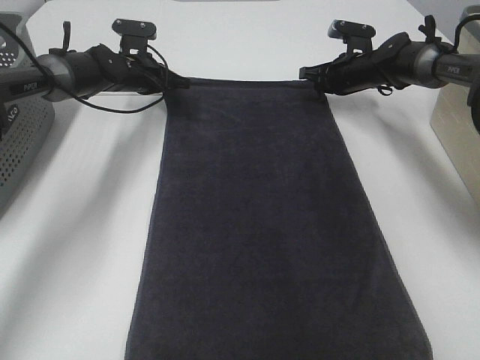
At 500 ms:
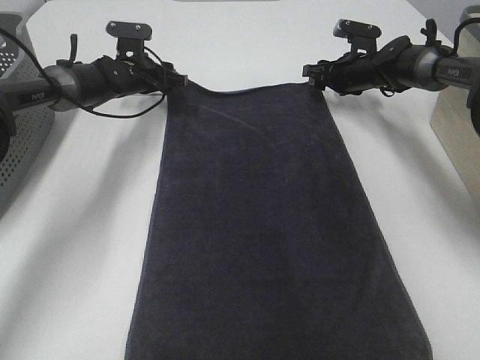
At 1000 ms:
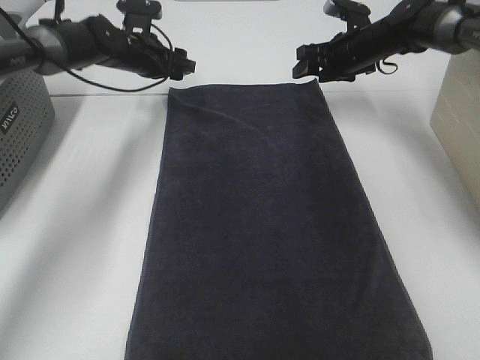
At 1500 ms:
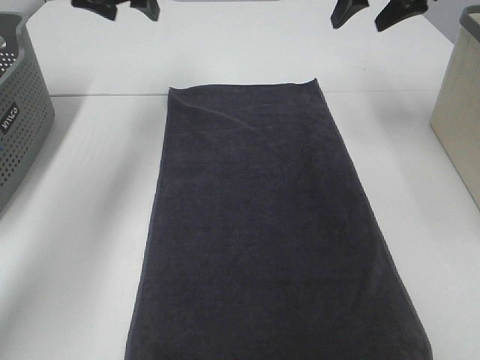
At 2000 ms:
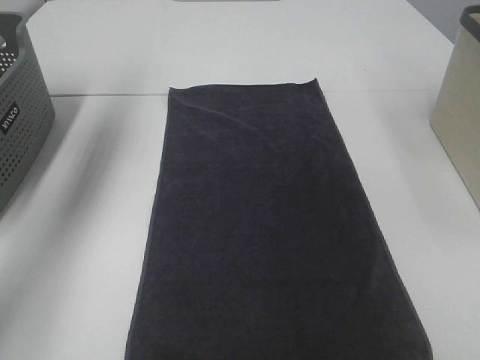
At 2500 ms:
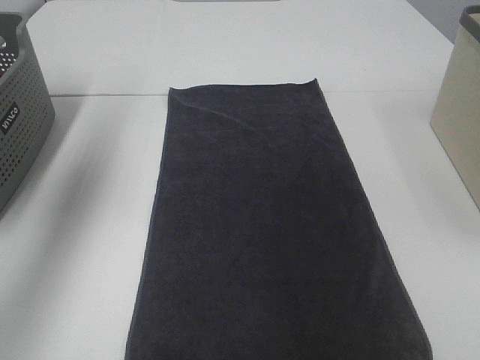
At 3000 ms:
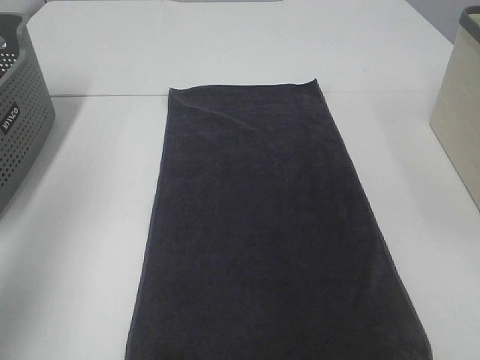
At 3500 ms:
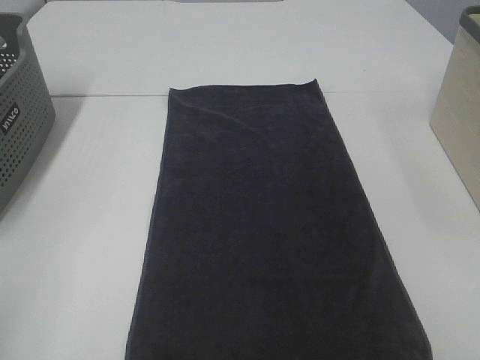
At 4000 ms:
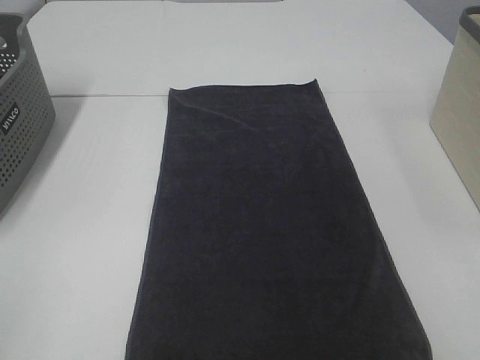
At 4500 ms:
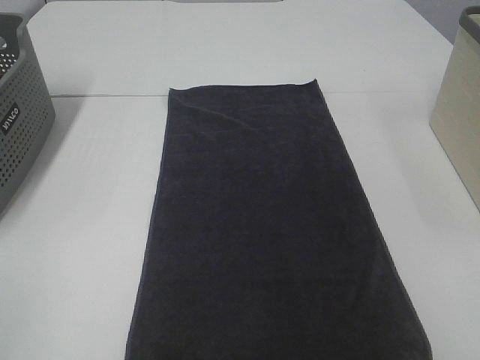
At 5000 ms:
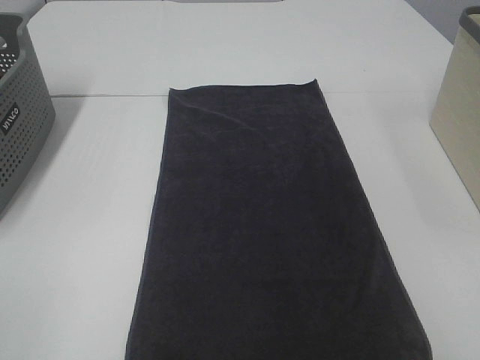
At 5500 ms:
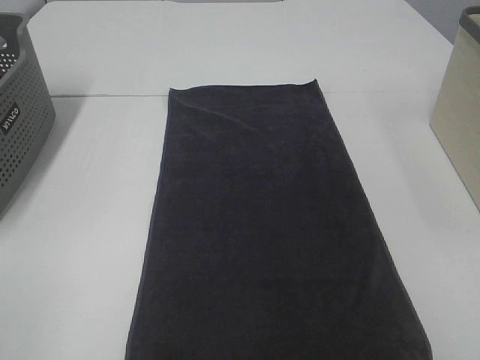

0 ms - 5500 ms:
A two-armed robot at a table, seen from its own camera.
Task of the whole recording: Remove the towel and place it.
0 ms - 2000 ms: Both grippers move upward and backward, some 35 cm. The left gripper opens. Meanwhile the right gripper opens.
2000 ms - 3500 ms: The left gripper shifts about 40 cm backward.

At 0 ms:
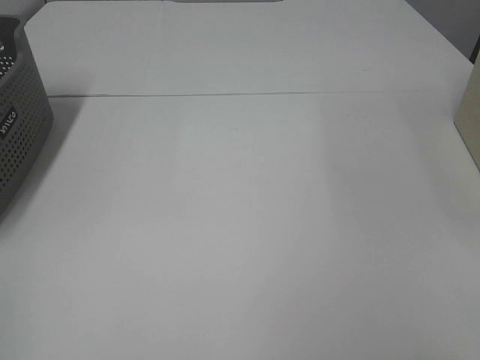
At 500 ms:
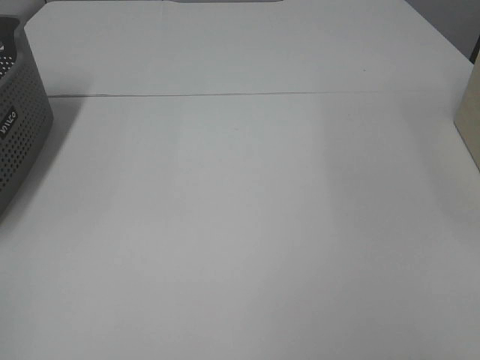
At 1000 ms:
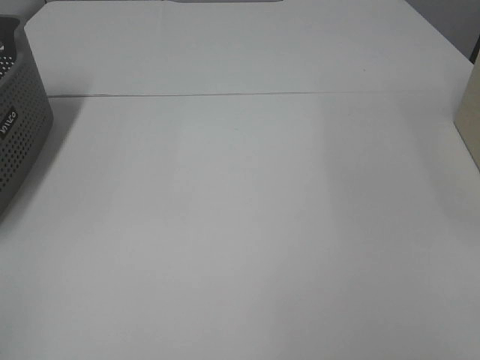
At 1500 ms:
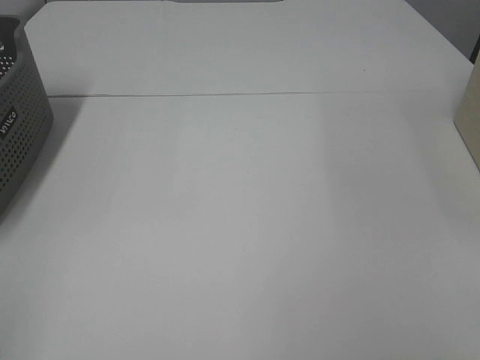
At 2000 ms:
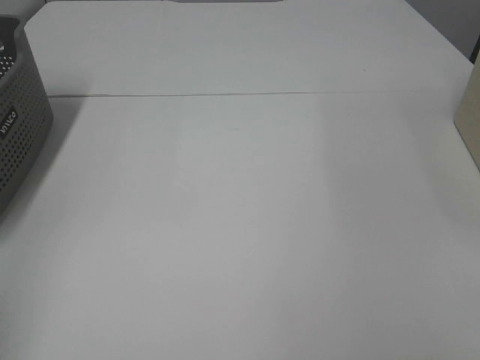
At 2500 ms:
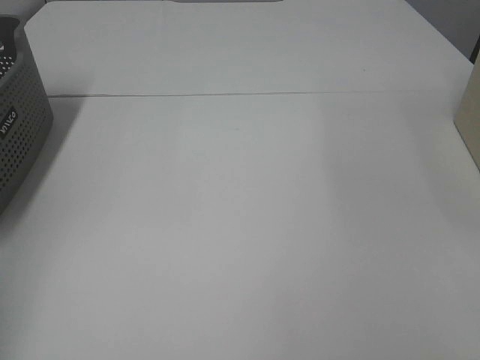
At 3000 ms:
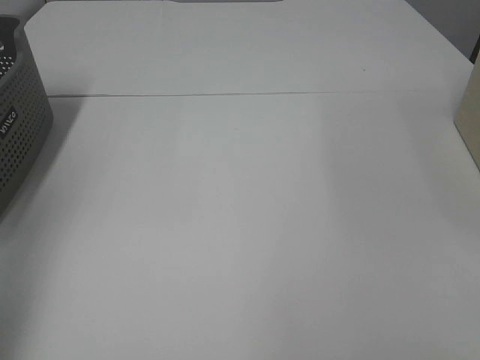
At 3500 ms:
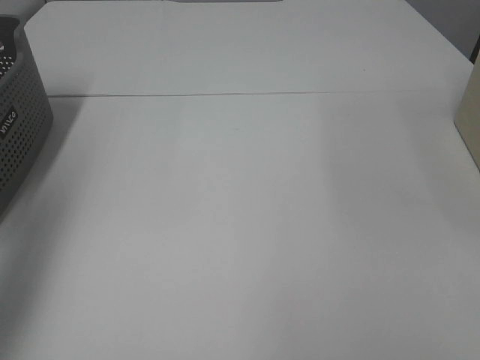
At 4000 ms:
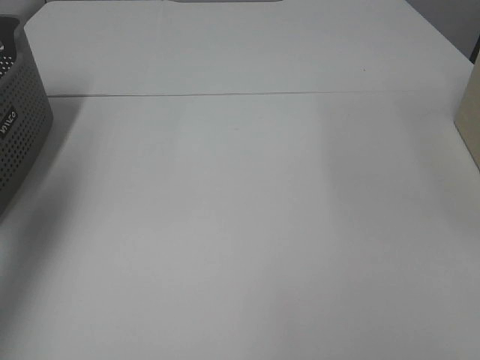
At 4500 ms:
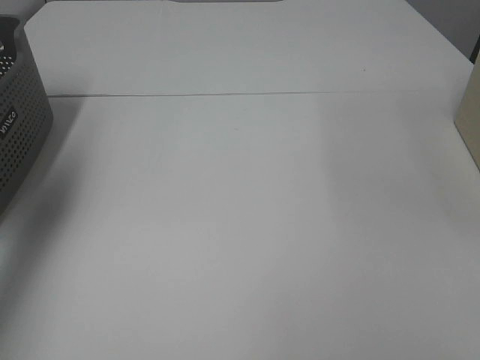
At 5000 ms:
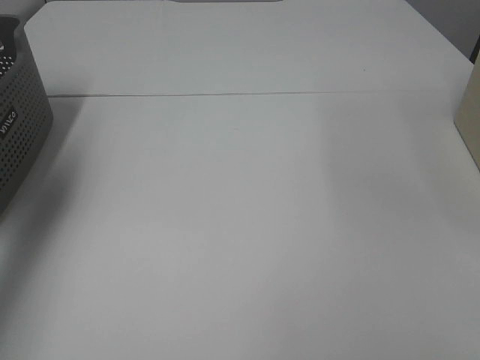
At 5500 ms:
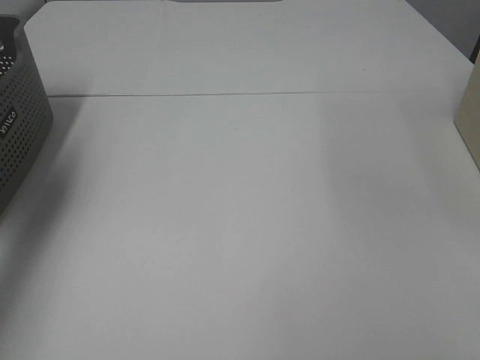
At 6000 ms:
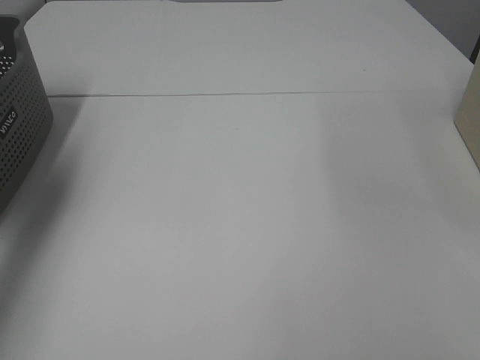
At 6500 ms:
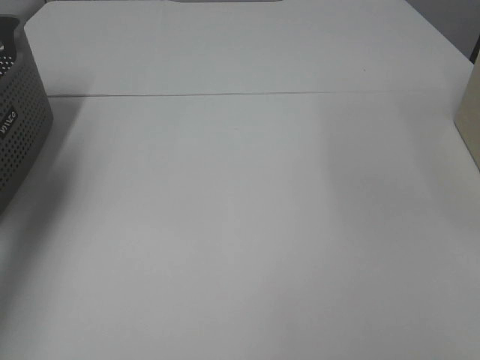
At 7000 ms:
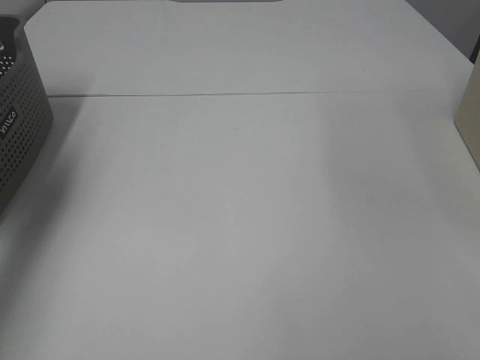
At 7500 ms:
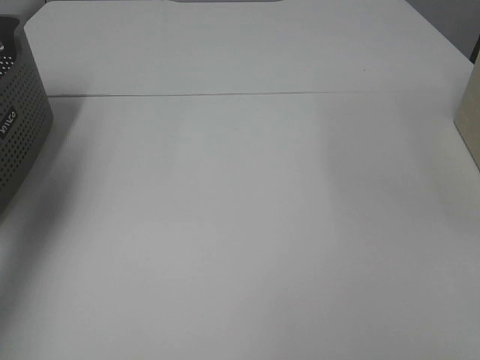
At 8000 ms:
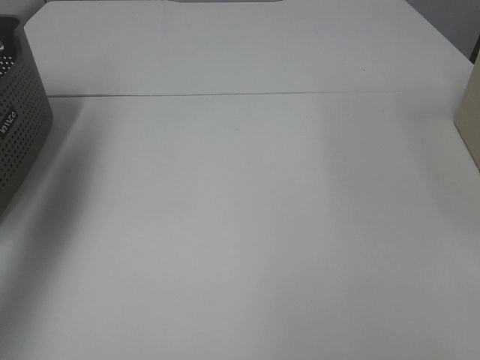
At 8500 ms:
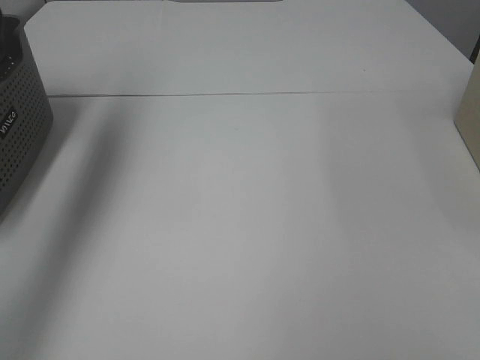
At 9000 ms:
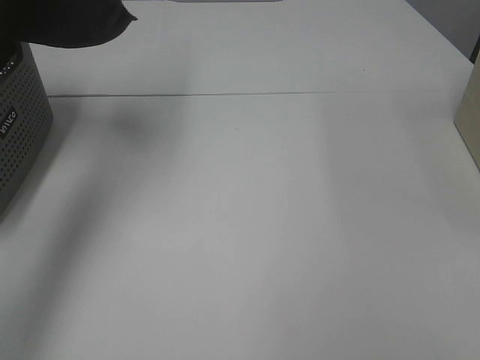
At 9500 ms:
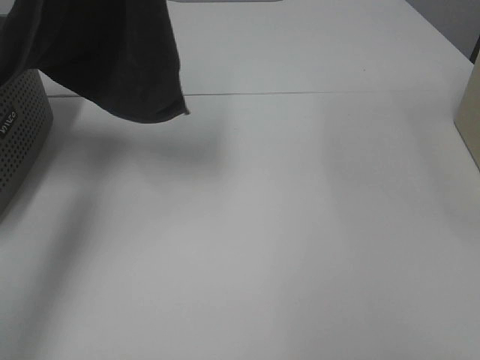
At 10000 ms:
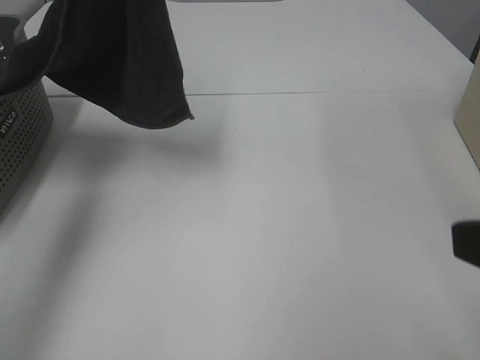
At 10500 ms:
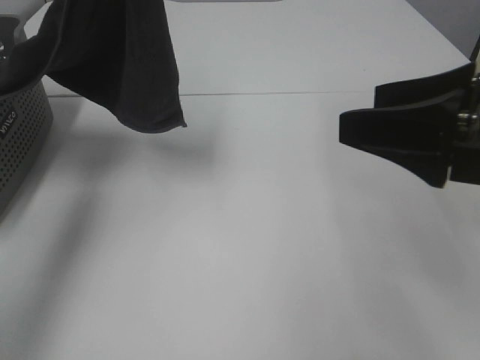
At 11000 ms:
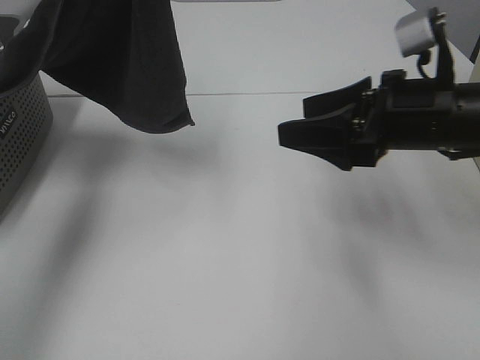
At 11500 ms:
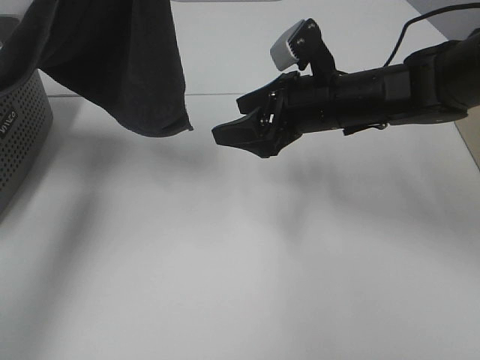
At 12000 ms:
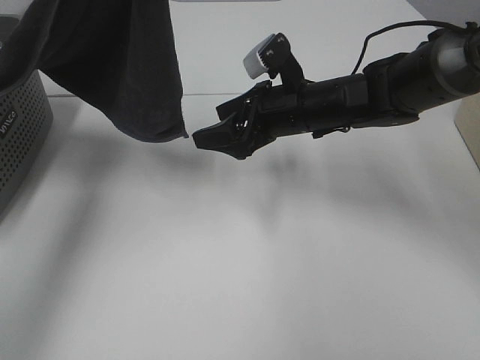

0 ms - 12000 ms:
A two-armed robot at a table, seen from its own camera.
Task of the whole recording: Remove the towel and place it.
2000 ms - 4000 ms: The left gripper goes some 30 cm forward.
6000 ms - 8000 ms: The left gripper shifts roughly 20 cm upward, and closes.
8000 ms - 10000 ms: The left gripper goes some 15 cm to the right. The right gripper moves forward, about 10 cm.
10000 ms - 12000 ms: The right gripper shifts about 35 cm forward, downward and to the left.

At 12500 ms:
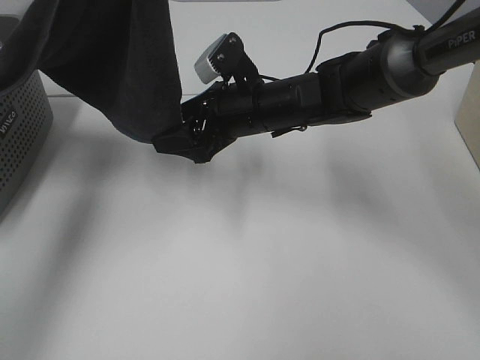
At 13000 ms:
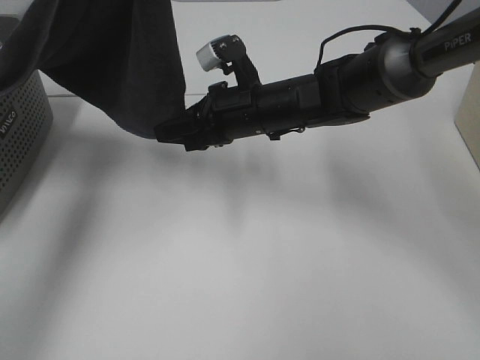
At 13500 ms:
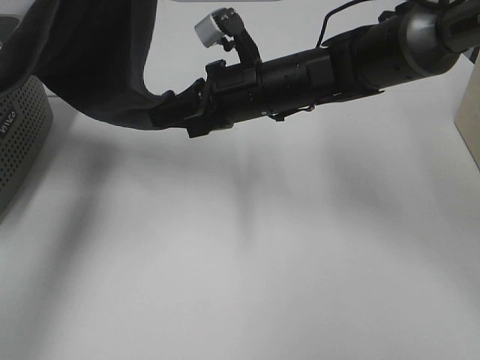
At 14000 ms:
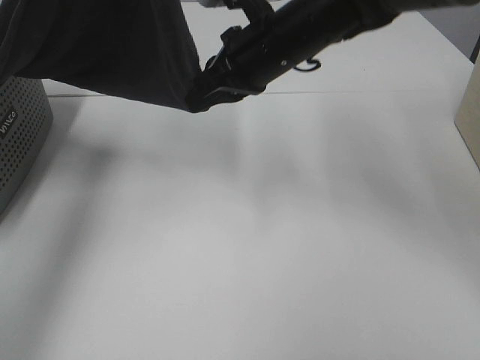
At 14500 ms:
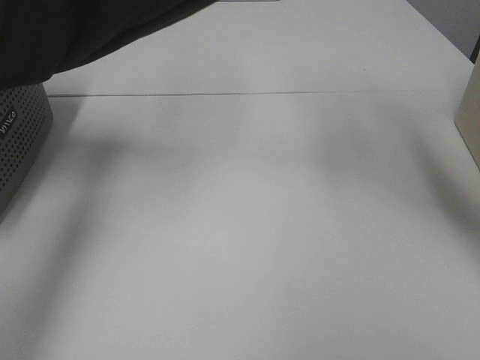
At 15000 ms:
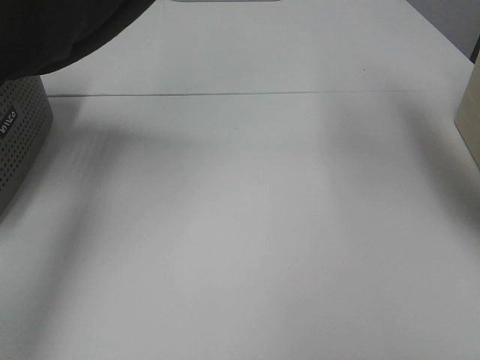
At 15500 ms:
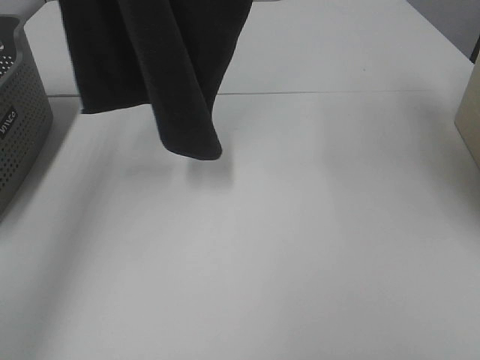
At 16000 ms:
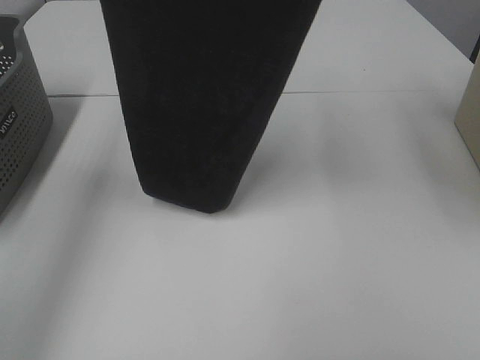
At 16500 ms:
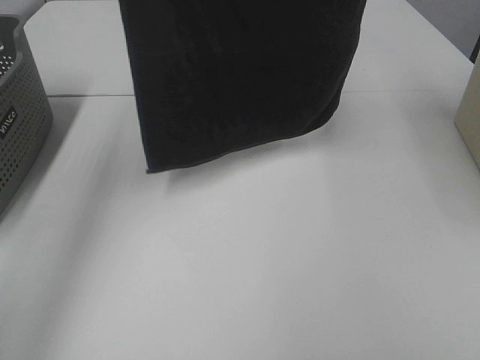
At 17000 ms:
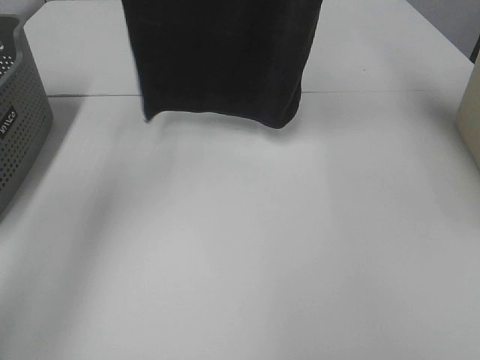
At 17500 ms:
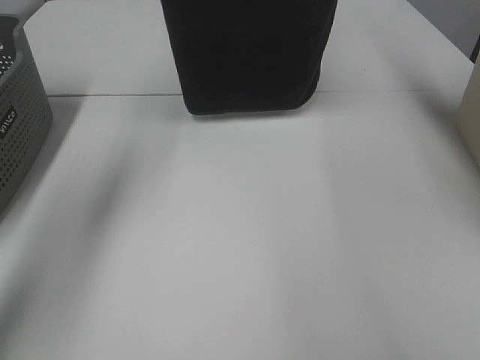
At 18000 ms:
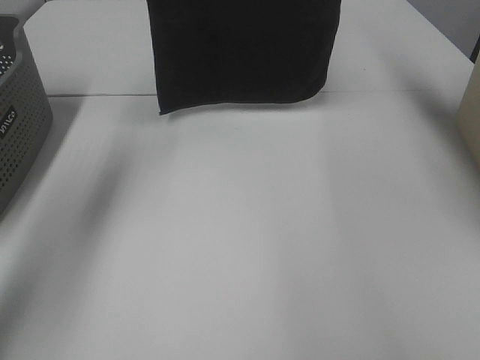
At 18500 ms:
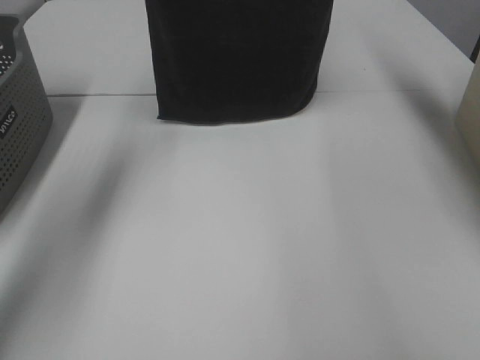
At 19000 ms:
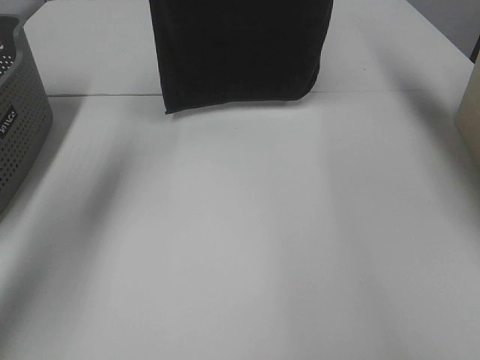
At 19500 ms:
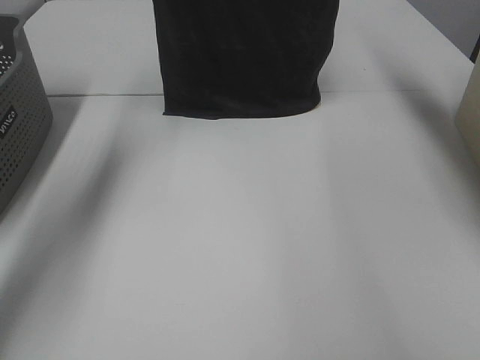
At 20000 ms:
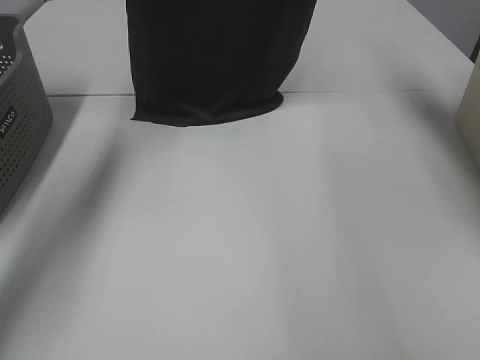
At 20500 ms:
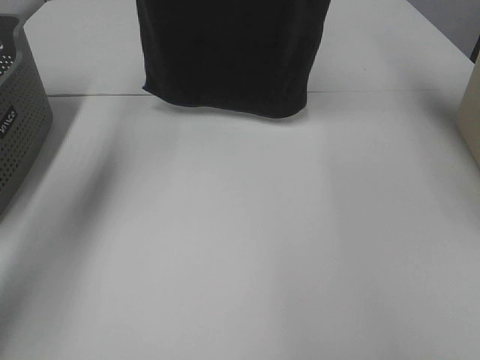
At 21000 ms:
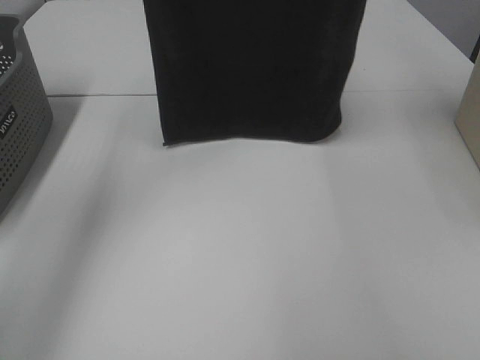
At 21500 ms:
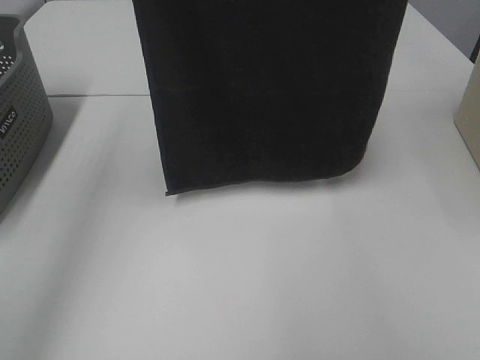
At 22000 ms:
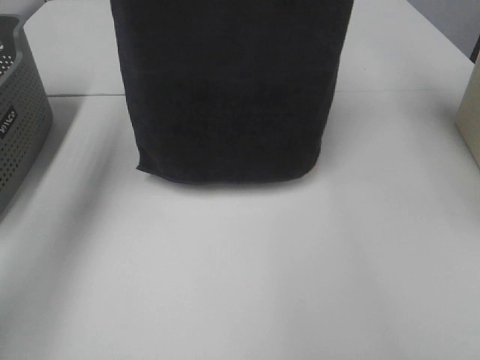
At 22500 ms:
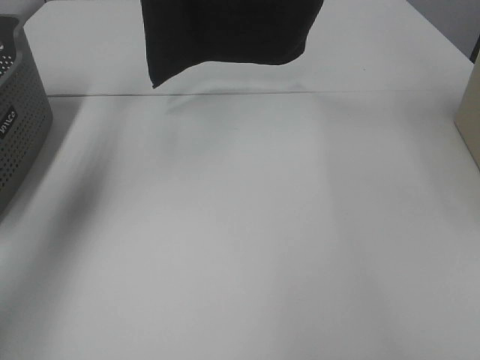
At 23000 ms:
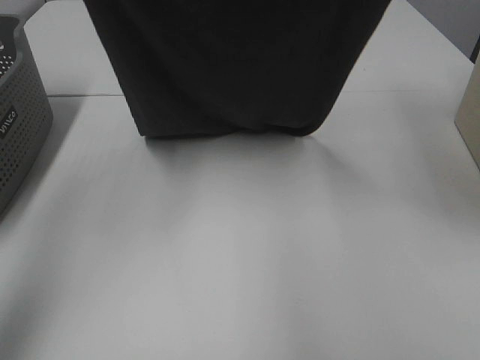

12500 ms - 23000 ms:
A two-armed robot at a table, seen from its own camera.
Task of the whole recording: Remove the towel and place it.
12500 ms - 14500 ms: The left gripper goes approximately 5 cm upward; the right gripper goes approximately 30 cm upward, and closes its fingers.
14500 ms - 16500 ms: The right gripper heads upward and to the right, covering some 20 cm.
16500 ms - 19000 ms: The right gripper moves forward and downward, about 15 cm. Meanwhile the left gripper heads forward, covering approximately 10 cm.
19000 ms - 21000 ms: The right gripper goes approximately 15 cm backward and upward, while the left gripper moves backward, some 10 cm.
21000 ms - 23000 ms: The right gripper shifts roughly 15 cm downward and backward, while the left gripper goes forward and backward, about 20 cm each way, reversing 2 times.
